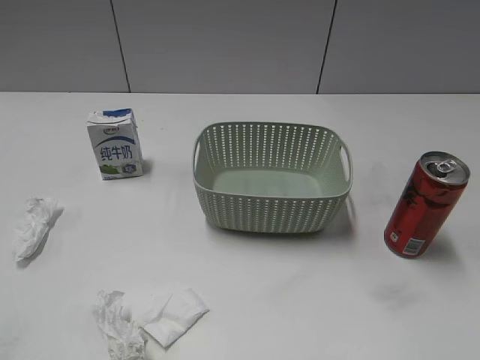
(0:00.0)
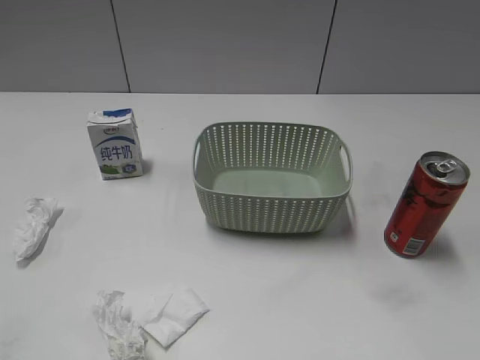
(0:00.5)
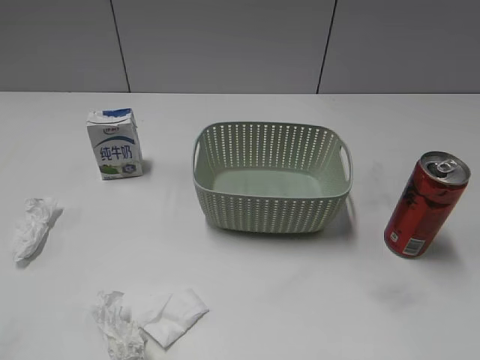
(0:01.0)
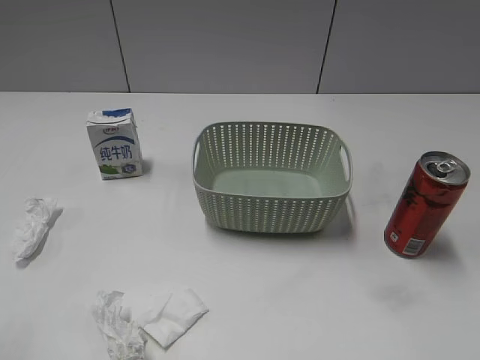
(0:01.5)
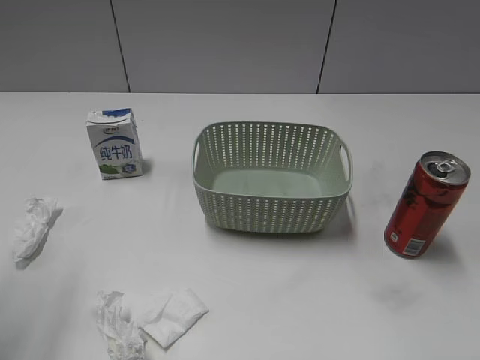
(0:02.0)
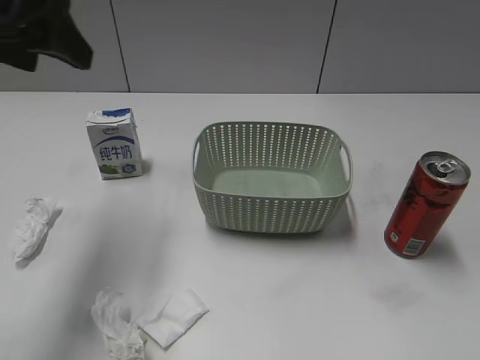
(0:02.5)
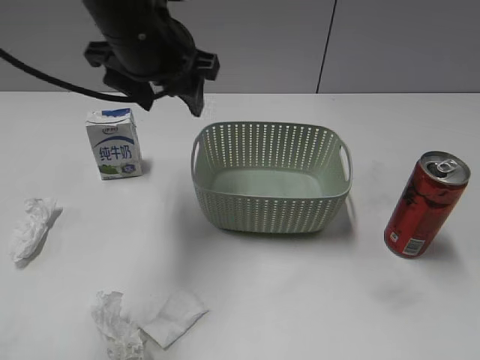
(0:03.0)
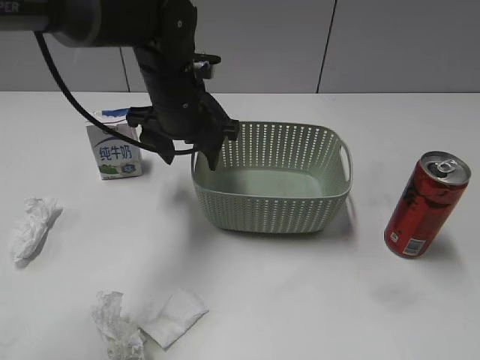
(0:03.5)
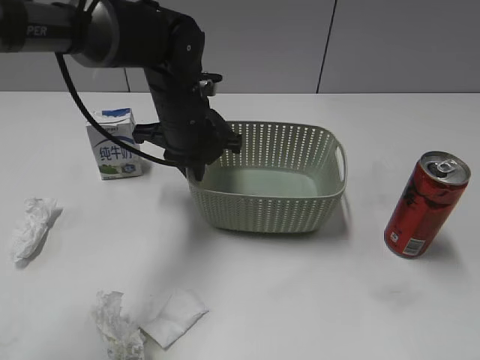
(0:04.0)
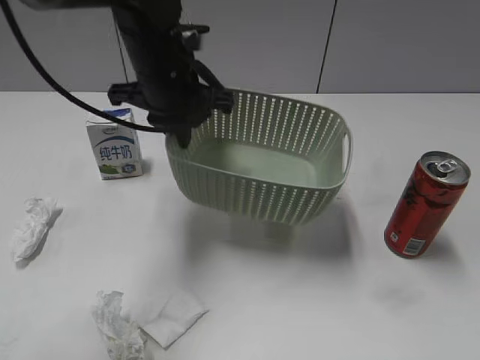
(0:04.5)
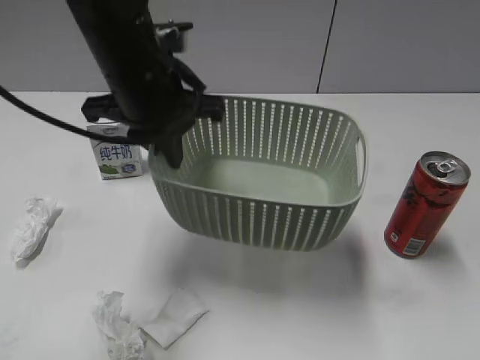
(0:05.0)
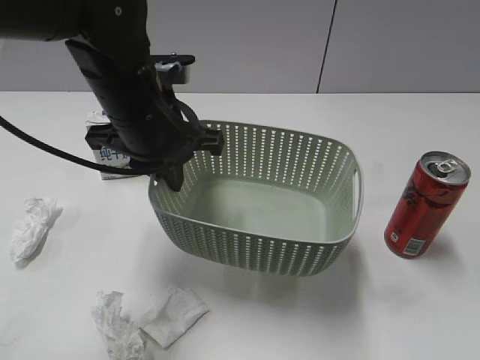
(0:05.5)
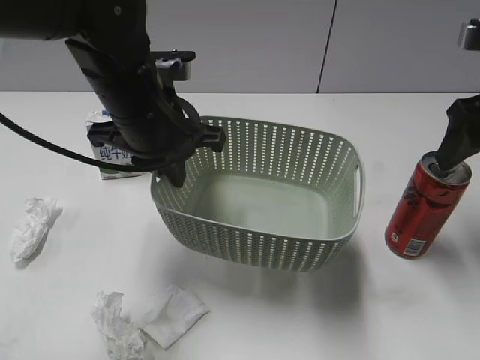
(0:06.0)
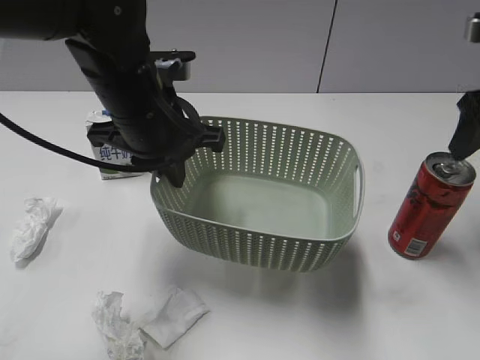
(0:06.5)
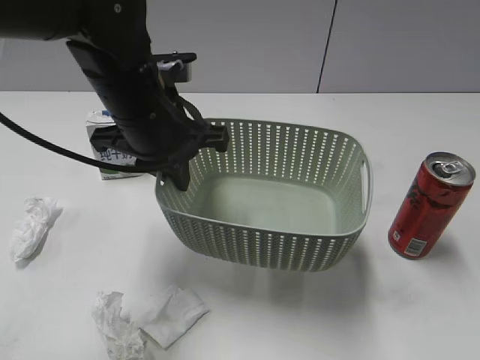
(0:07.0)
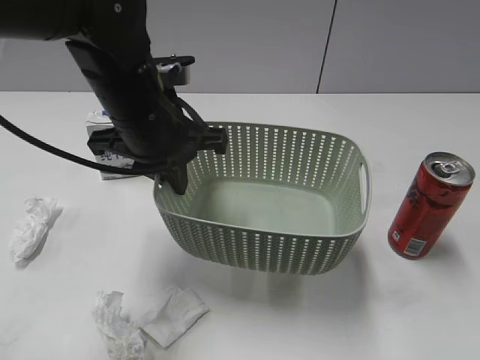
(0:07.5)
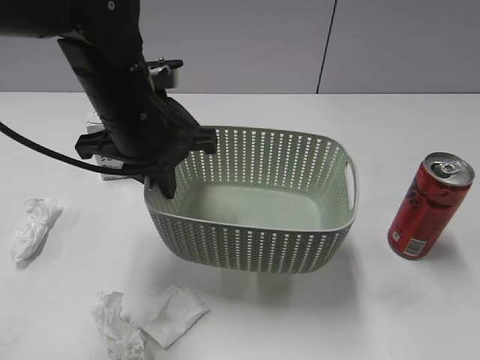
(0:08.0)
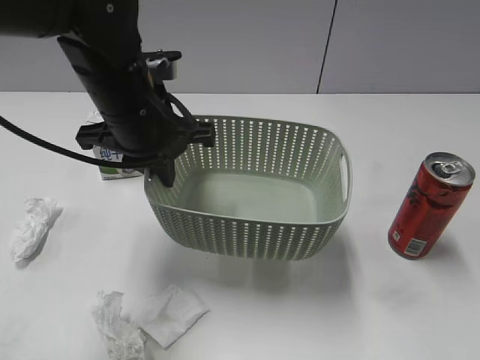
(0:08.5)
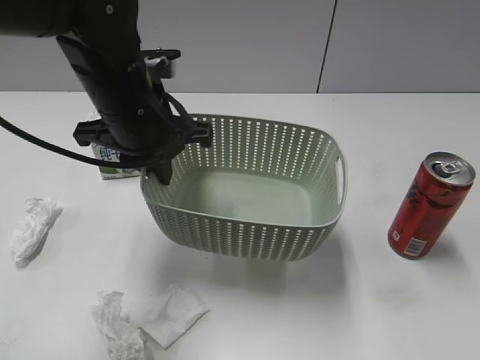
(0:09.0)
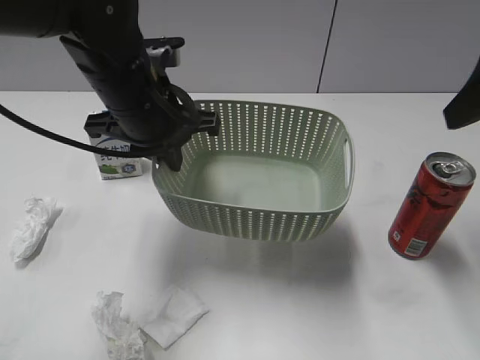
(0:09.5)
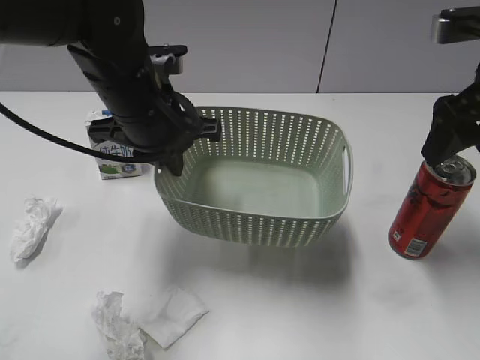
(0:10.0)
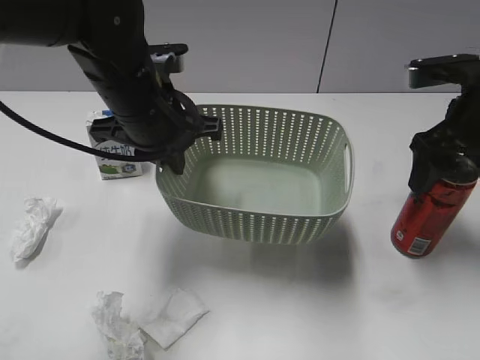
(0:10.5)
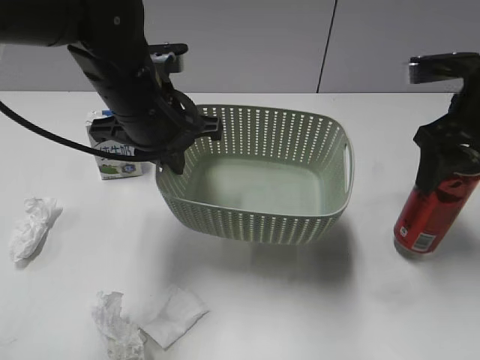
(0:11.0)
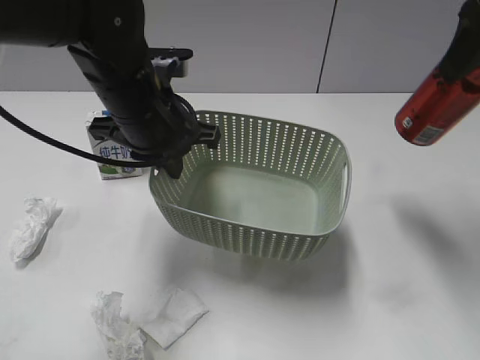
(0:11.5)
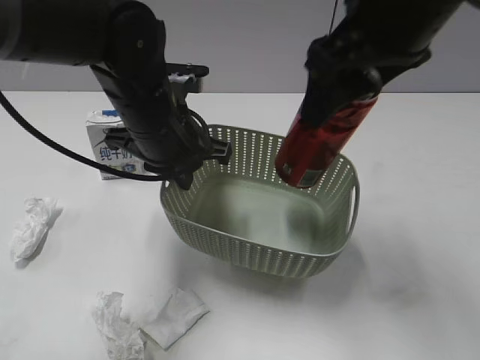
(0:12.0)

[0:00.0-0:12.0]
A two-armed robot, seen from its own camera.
Step, 0:02.5 to 0:04.0: Grasp the basket with left gripper.
Step, 0:04.5 to 0:05.5: Lift the basket with left gripper.
Step, 0:06.0 to 0:10.5: Grasp the cola can with right gripper.
0:02.0 to 0:04.0: The left gripper heads to the right, downward and forward, covering roughly 35 cm, and closes up.
0:04.0 to 0:06.0: The right gripper moves forward, roughly 30 cm; the left gripper heads backward and upward, covering some 10 cm.
0:06.0 to 0:08.0: The right gripper is displaced backward by some 30 cm.
0:08.0 to 0:10.0: The right gripper travels forward by approximately 30 cm.
0:10.0 to 0:12.0: The right gripper moves up and down over roughly 15 cm, changing direction 2 times, and closes up.

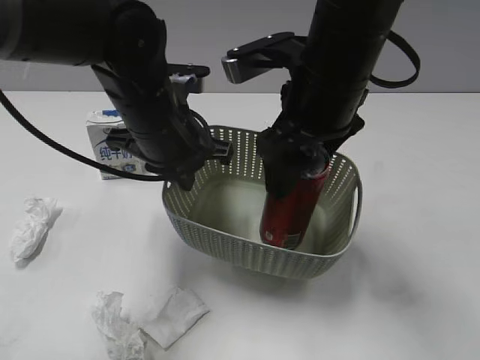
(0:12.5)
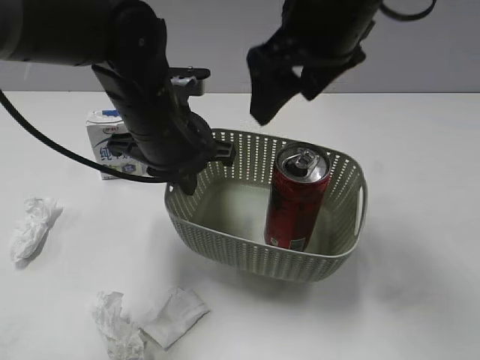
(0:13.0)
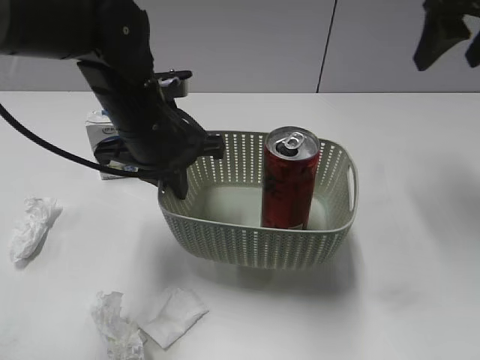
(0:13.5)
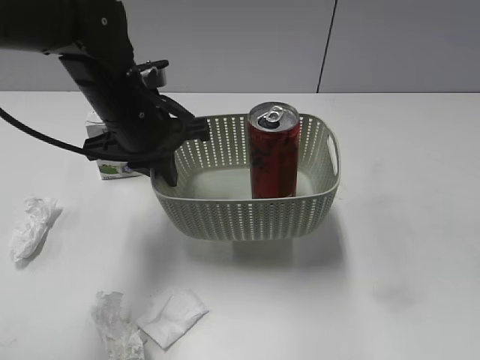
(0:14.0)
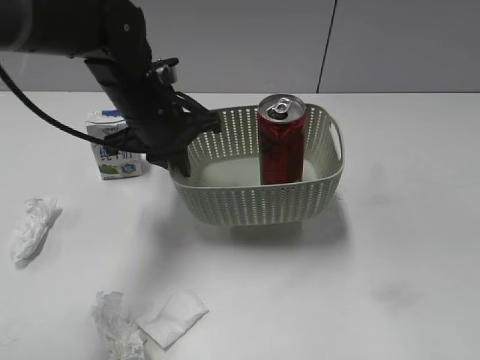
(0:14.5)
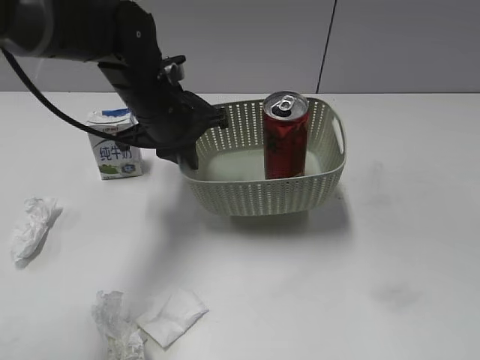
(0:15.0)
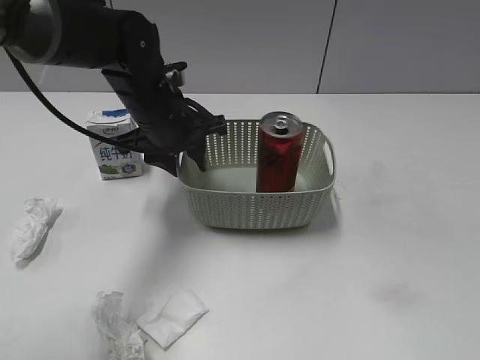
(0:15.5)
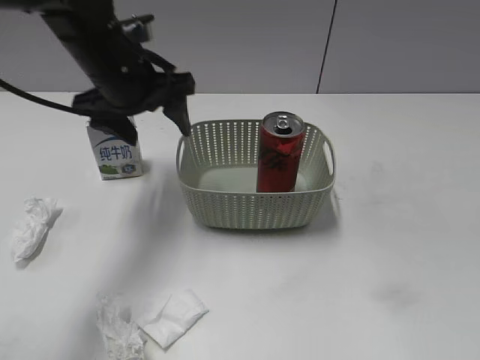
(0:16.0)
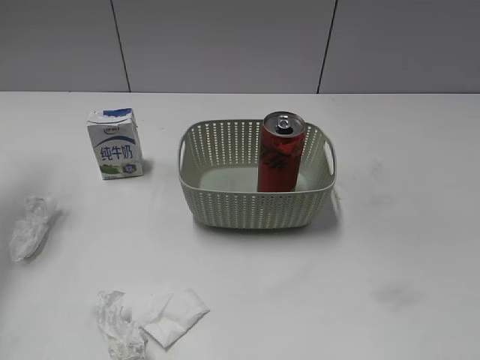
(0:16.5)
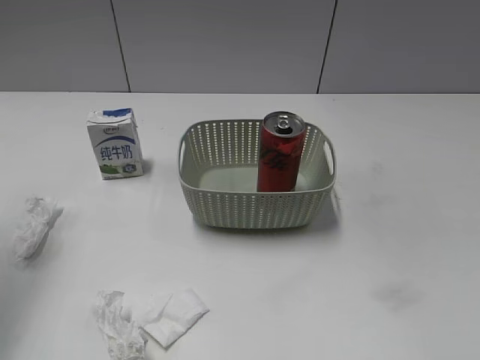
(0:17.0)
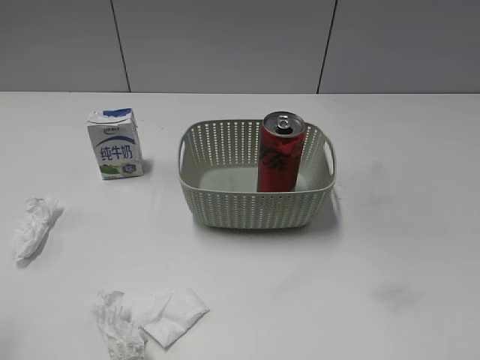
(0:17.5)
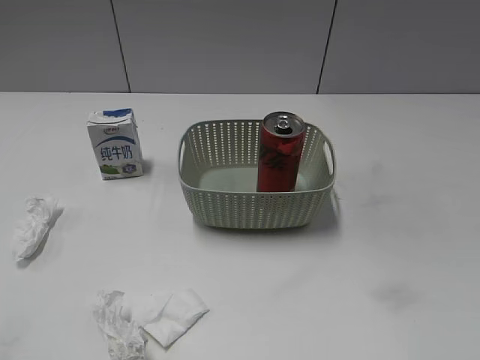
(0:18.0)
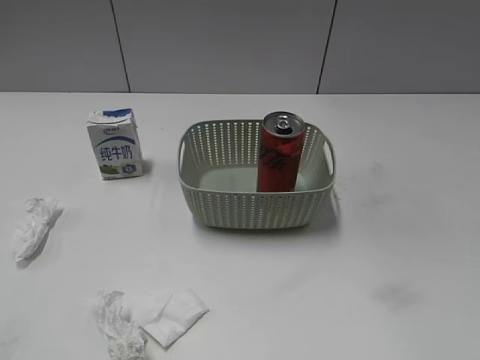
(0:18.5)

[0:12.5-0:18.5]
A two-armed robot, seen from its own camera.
Step, 0:13.0 to 0:15.5: Place the basket on the table with left gripper.
0:12.5 to 0:14.5: The left gripper moves roughly 5 cm, while the right gripper goes roughly 35 cm backward and to the right.
0:14.5 to 0:16.5: The left gripper is displaced to the left and upward by approximately 30 cm, and opens up; the right gripper moves about 5 cm.
0:16.5 to 0:18.5: The left gripper goes about 35 cm backward.

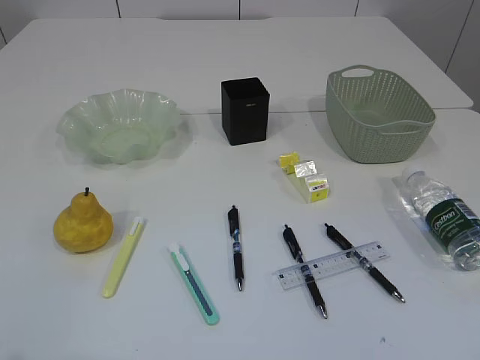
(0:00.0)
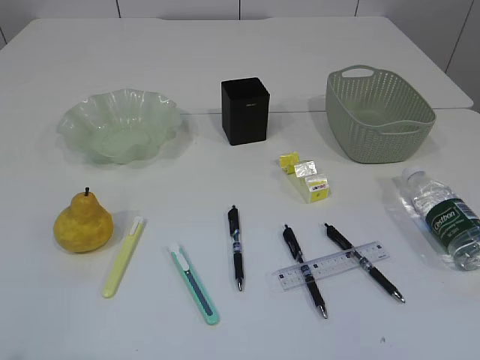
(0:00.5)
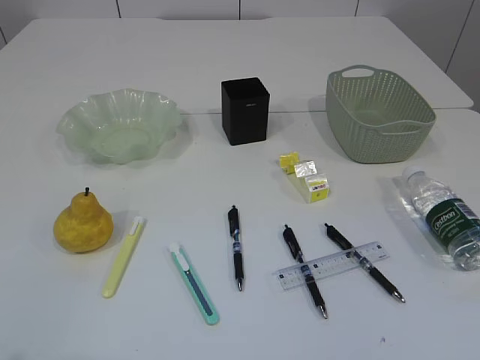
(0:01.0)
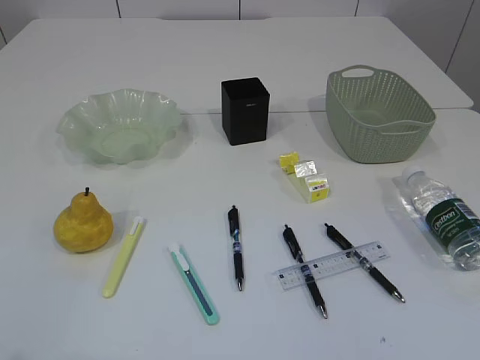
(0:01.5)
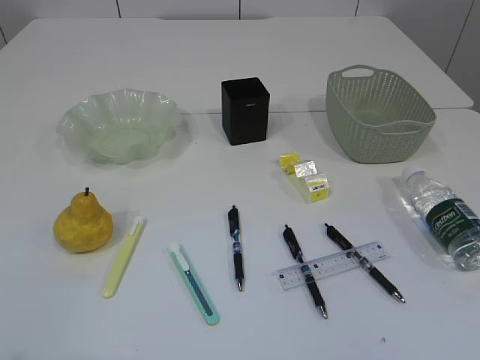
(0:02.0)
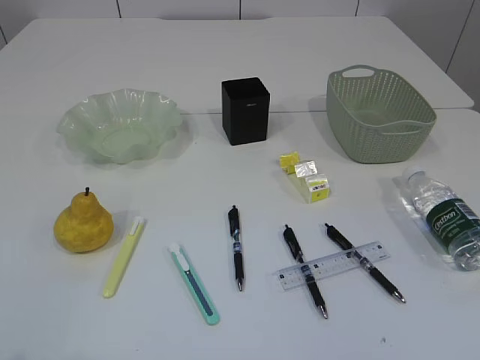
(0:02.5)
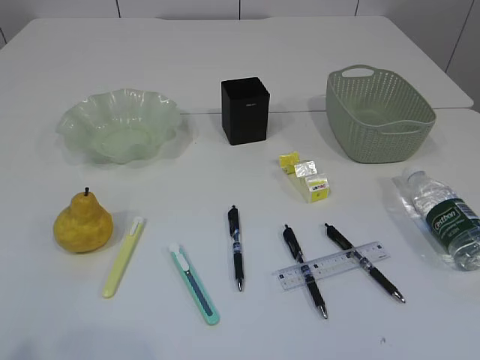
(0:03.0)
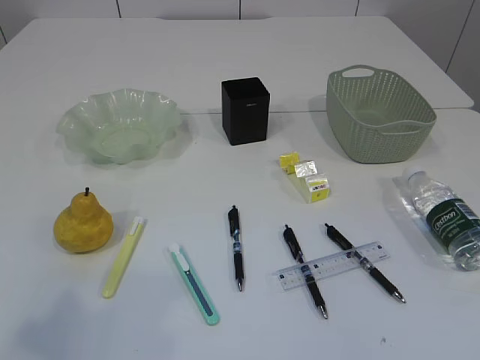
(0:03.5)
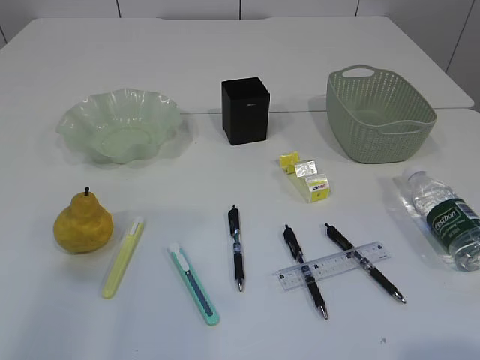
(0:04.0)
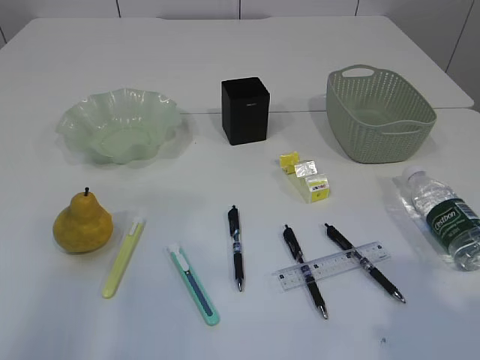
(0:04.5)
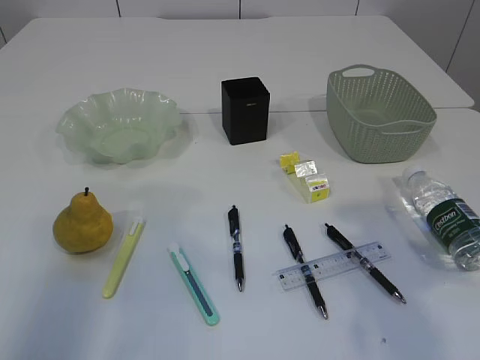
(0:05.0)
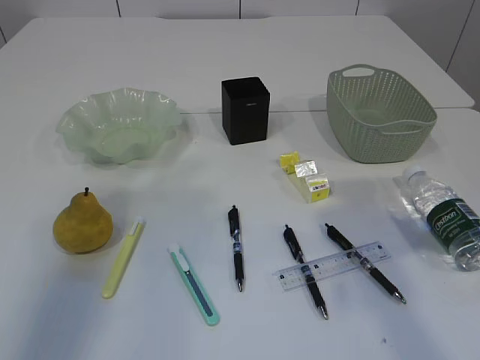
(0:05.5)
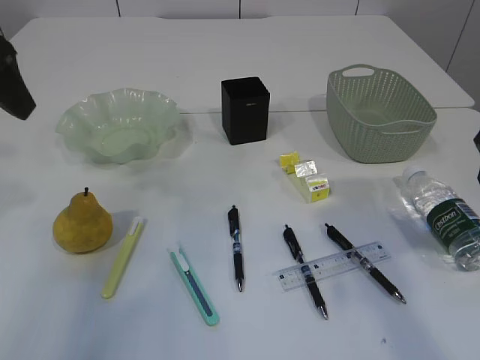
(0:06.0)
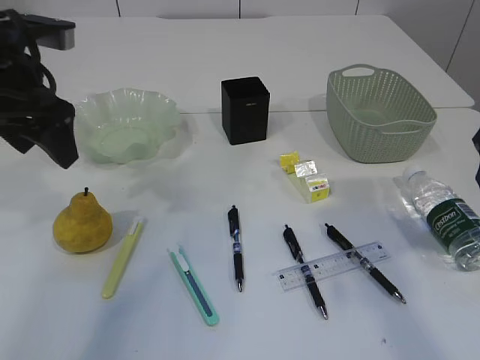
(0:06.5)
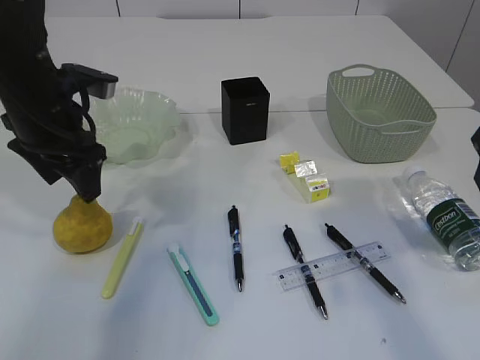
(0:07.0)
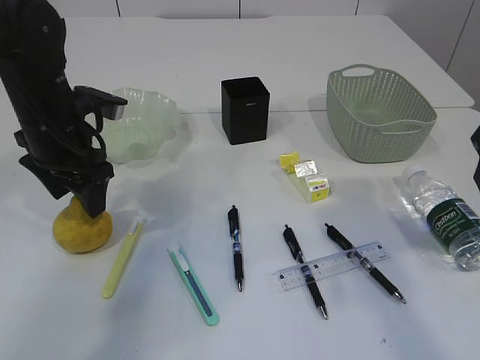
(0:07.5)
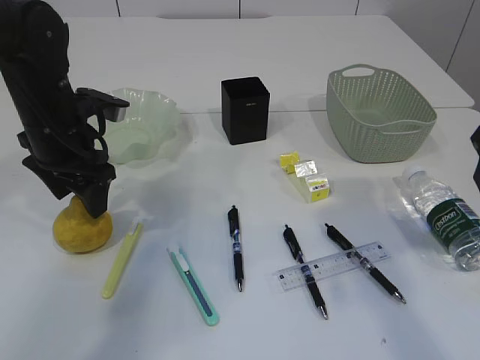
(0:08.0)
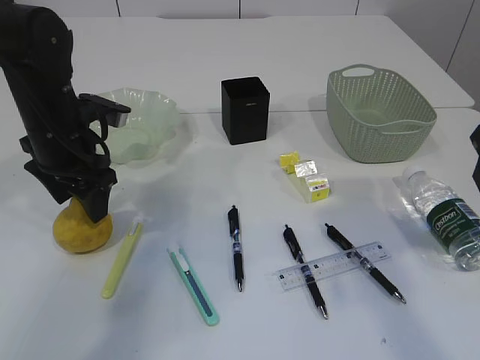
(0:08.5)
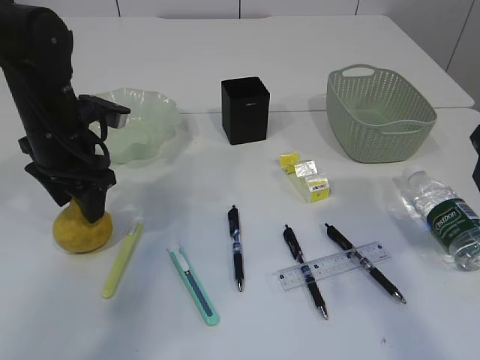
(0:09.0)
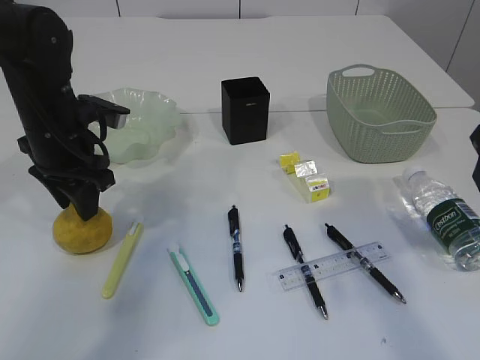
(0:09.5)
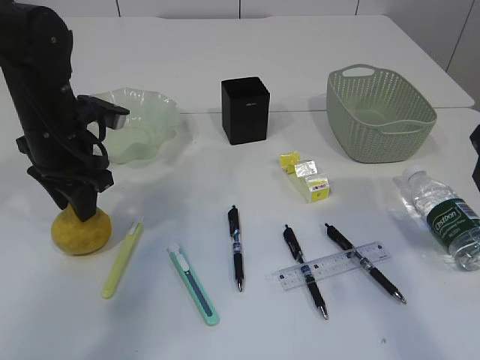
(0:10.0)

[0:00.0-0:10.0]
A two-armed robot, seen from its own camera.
0:02.0 to 0:04.0: The left gripper goes roughly 15 cm forward and upward.
0:04.0 to 0:06.0: Both grippers travel together forward, roughly 20 cm.
0:06.0 to 0:08.0: The left gripper is displaced downward and forward by some 15 cm.
0:08.0 to 0:10.0: The left gripper closes up.
